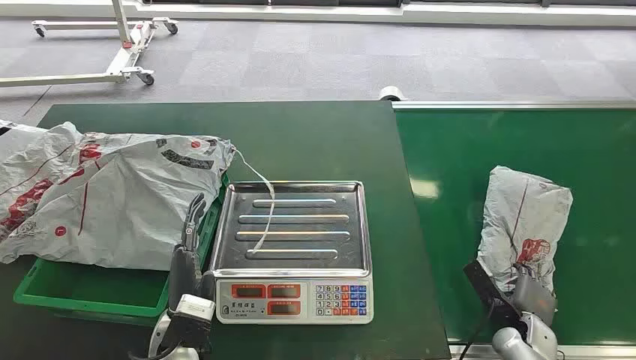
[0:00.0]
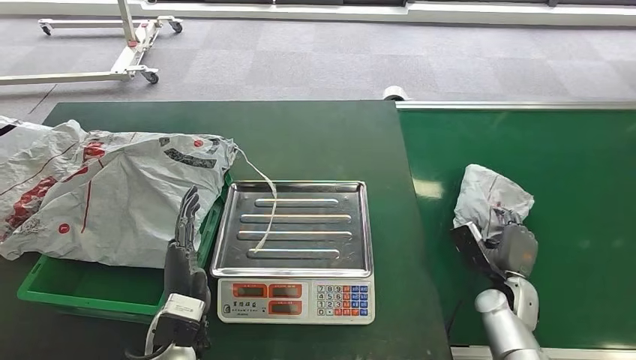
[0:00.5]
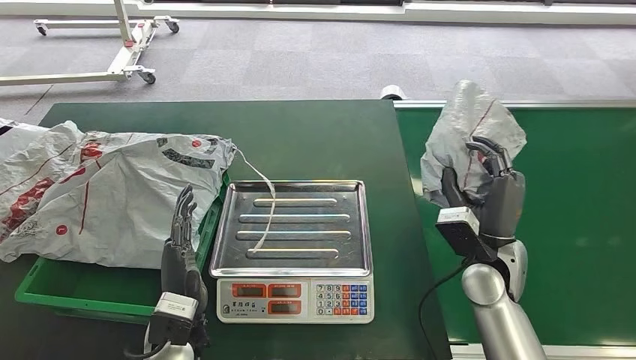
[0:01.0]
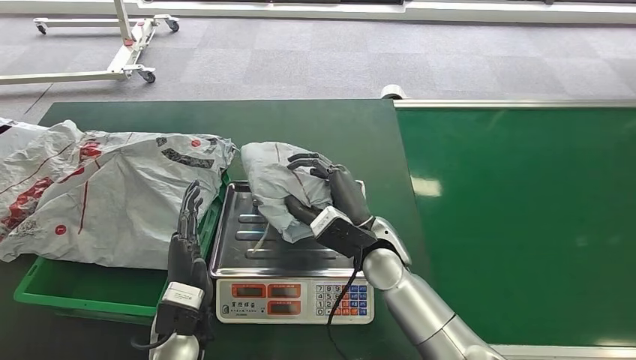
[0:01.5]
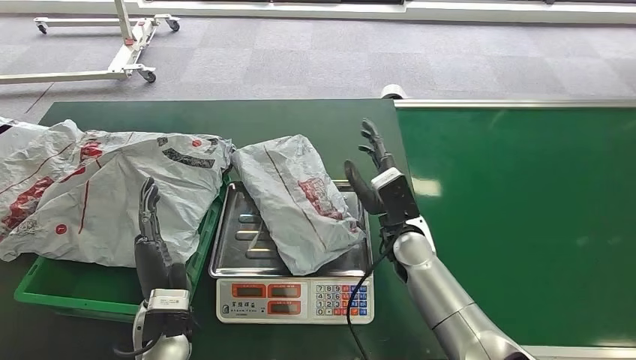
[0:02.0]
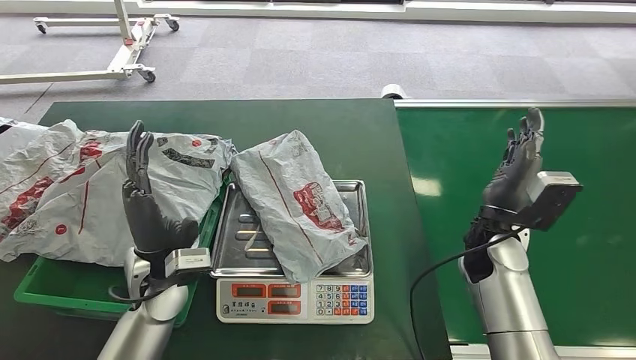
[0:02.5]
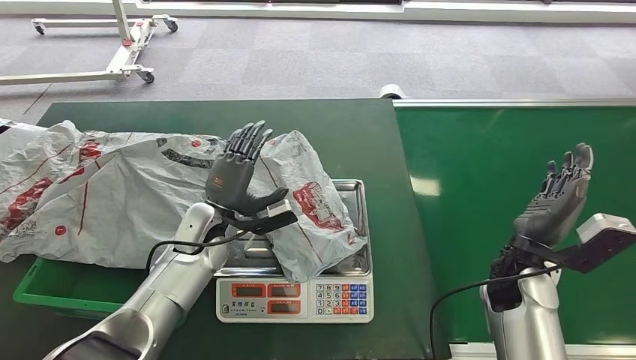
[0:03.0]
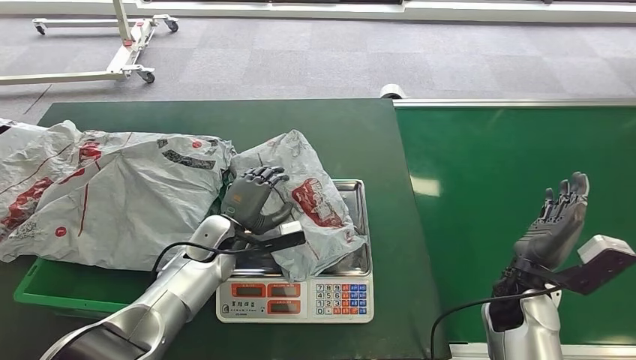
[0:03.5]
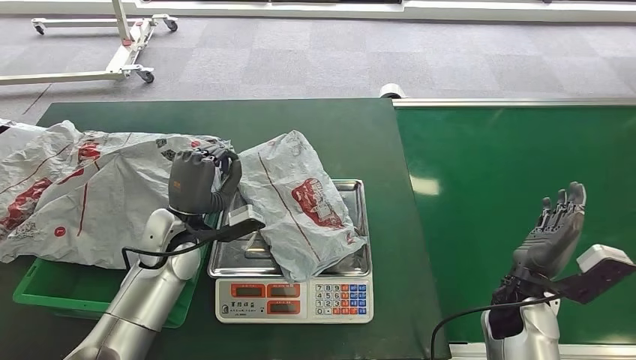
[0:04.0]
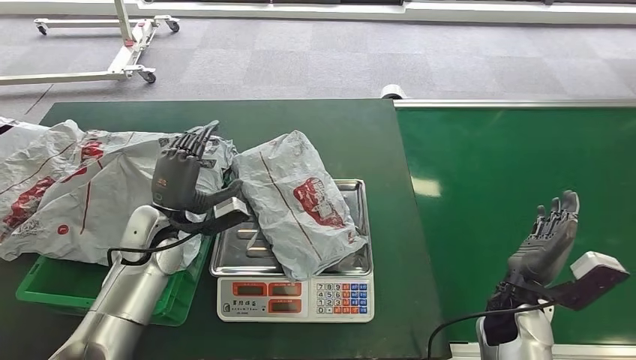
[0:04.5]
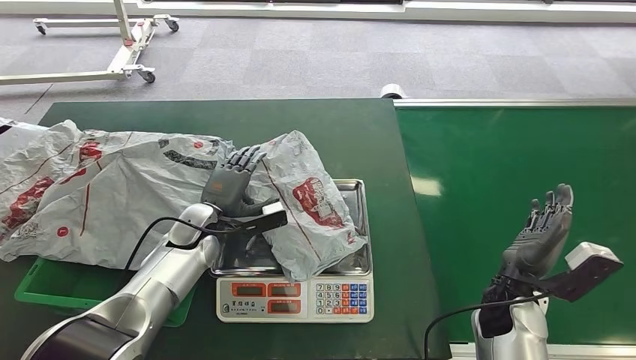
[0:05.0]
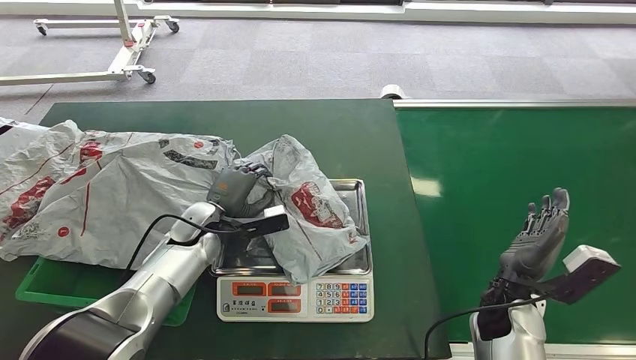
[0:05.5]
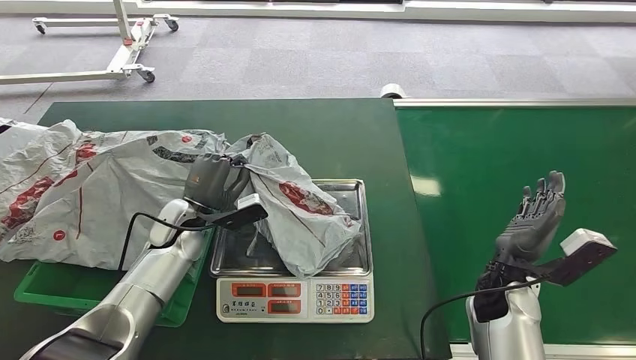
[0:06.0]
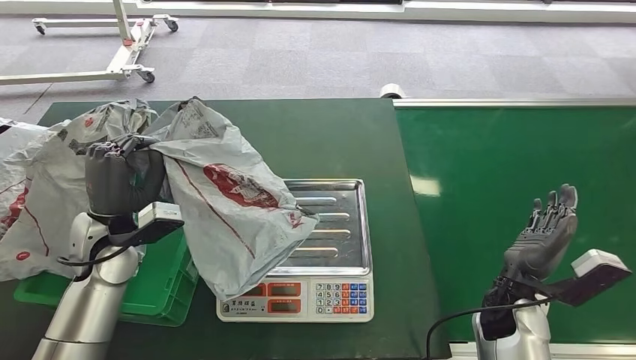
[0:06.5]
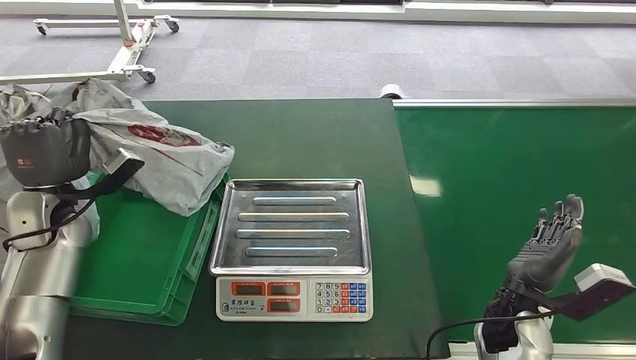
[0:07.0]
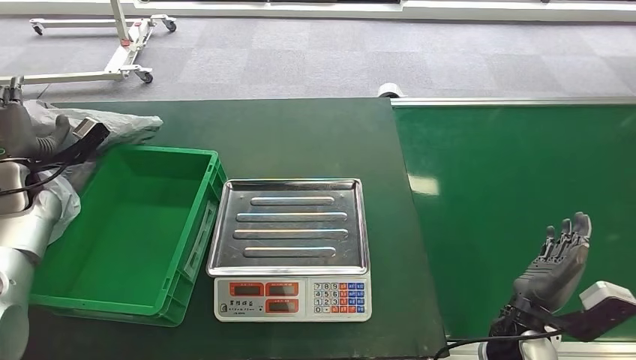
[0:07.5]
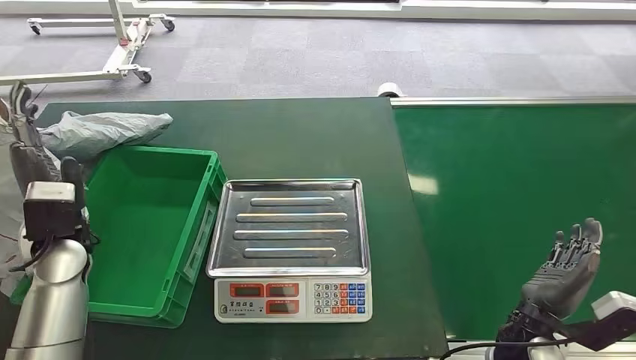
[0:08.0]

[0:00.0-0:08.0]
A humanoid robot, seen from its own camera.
Task of the whole recording: Weigh the package on the weighing device and place it in the left basket.
Step, 0:00.0 to 0:00.5: Pick up the package from the conveyor belt.
Step, 0:01.0 to 0:02.5: Place the package onto the inbound machine.
Step, 0:03.0 to 0:06.5: Pick up the package from the inbound machine.
Step, 0:07.0 to 0:07.5: Place the package into the parcel locker.
0:04.0 to 0:06.0: The left hand shifts by some 5 cm.

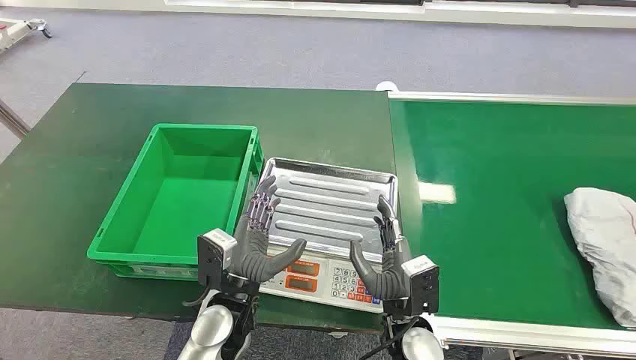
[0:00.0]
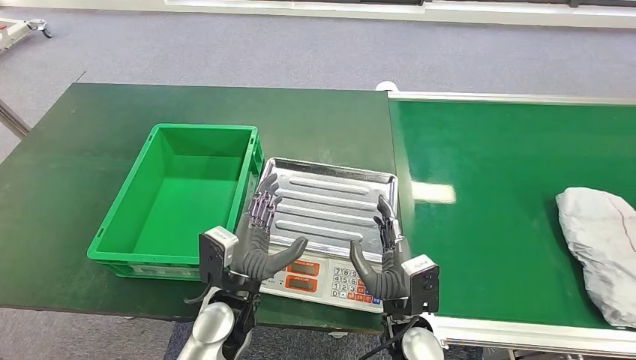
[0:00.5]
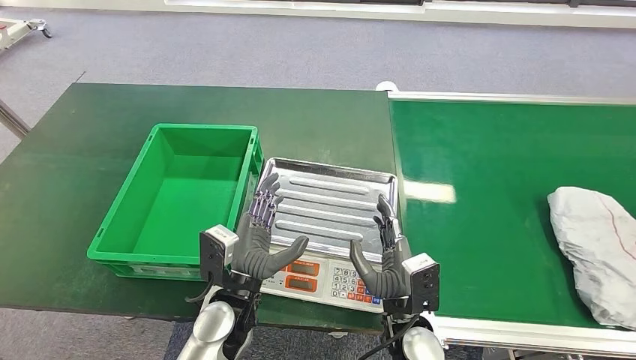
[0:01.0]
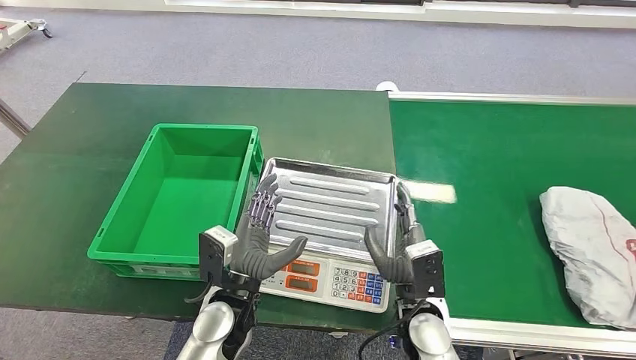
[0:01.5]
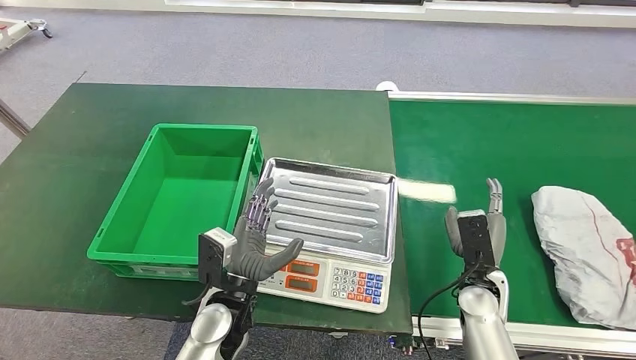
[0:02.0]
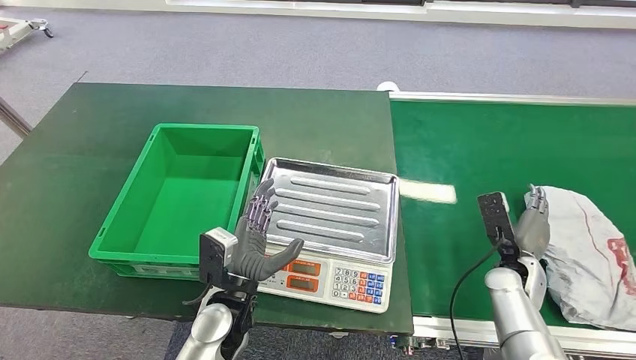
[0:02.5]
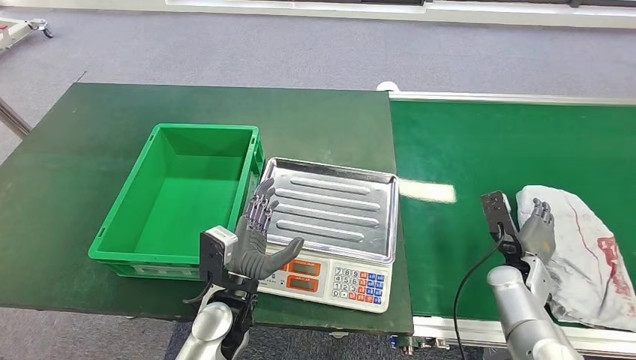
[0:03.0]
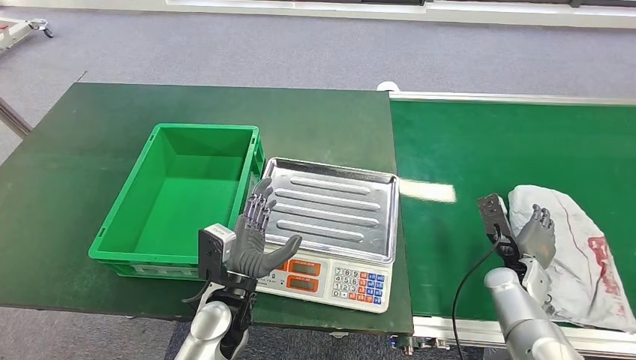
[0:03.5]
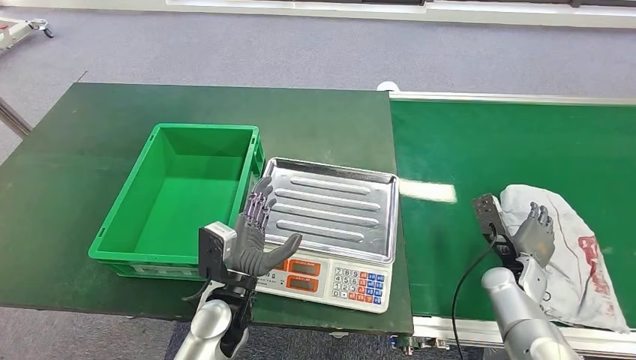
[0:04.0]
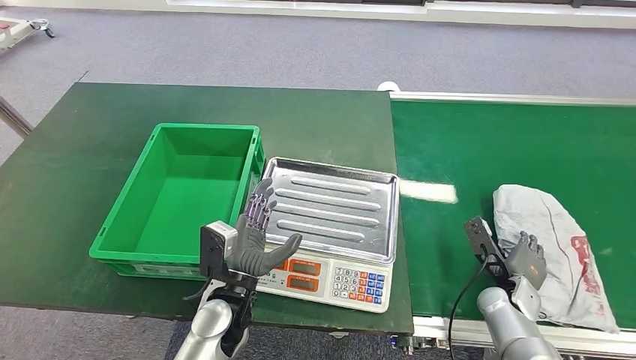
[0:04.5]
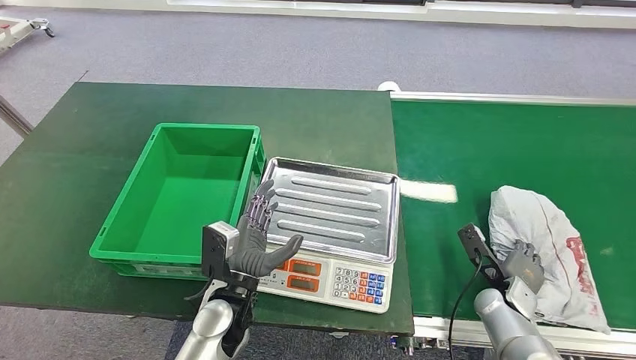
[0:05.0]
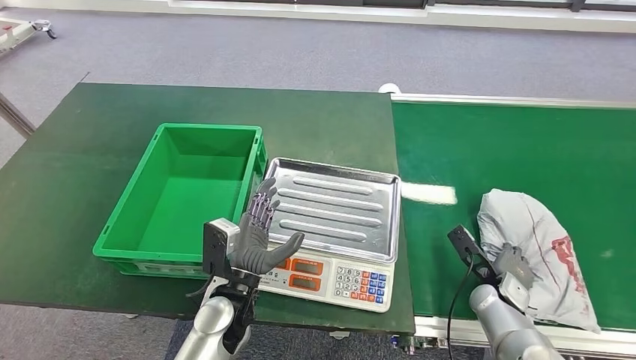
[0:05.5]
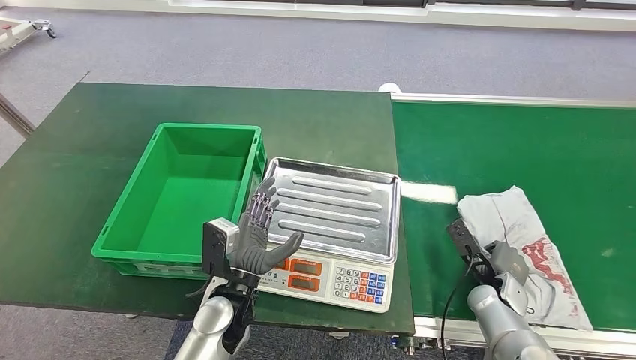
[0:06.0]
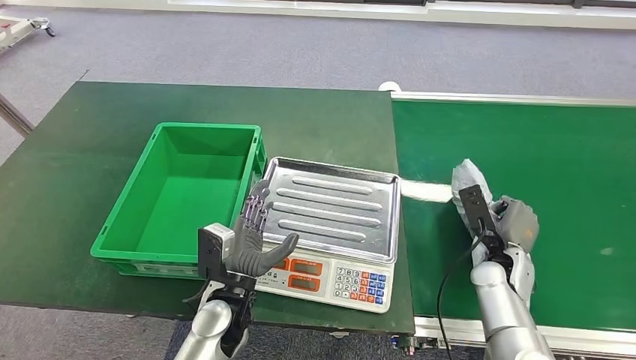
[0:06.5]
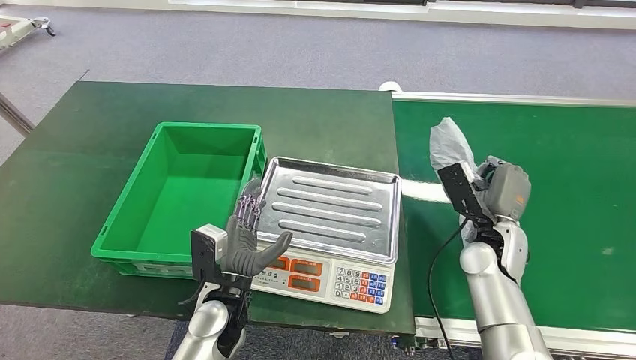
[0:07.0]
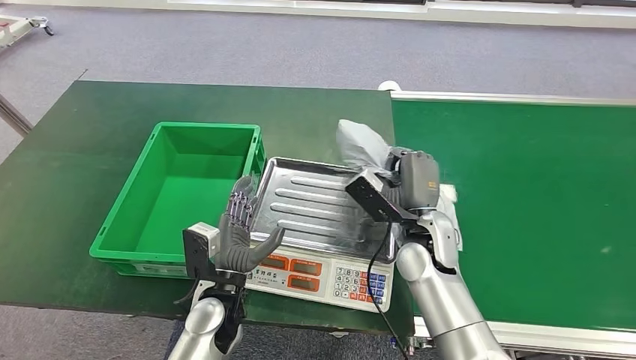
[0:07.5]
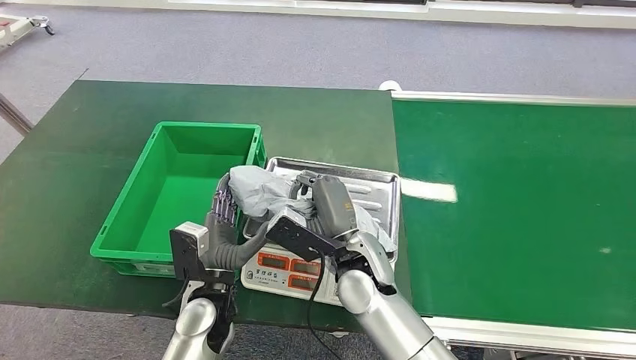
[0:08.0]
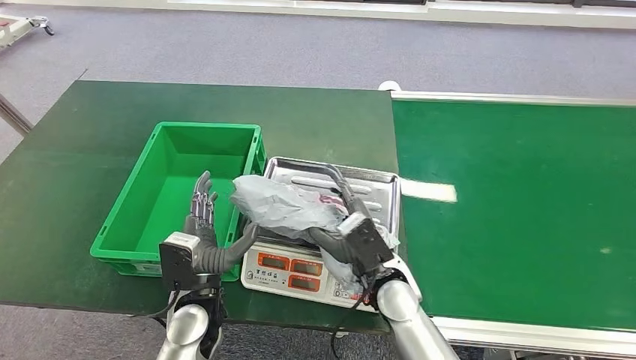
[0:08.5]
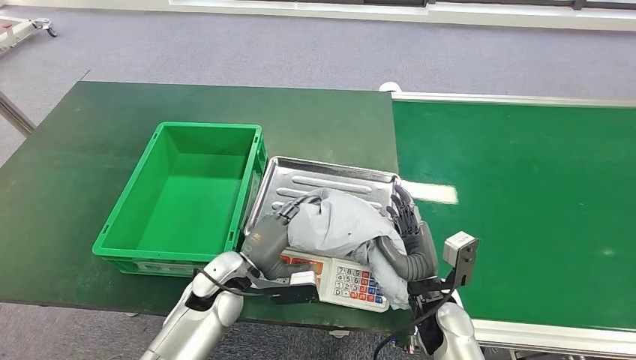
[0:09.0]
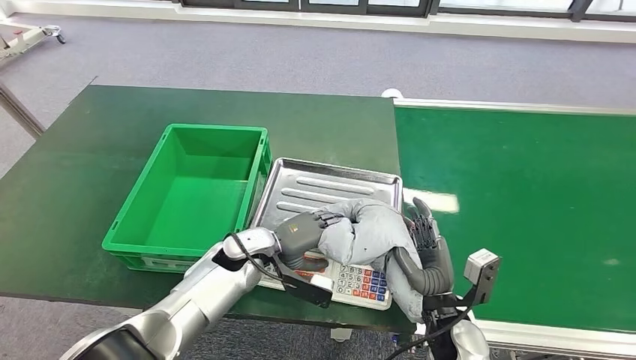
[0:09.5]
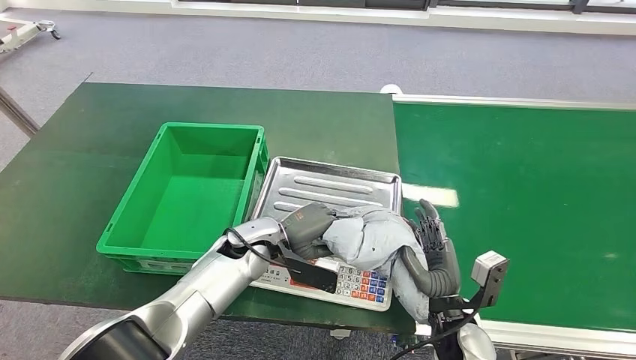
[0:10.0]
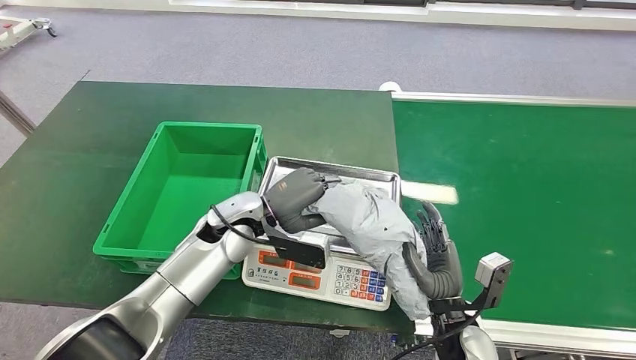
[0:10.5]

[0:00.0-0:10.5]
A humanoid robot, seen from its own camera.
Task of the whole recording: Weigh the package on the weighing device and place it in the left basket.
Step, 0:00.0 to 0:07.0: Pick up the package from the conveyor belt.
Step, 0:07.5 to 0:08.5: Place the package onto the inbound machine.
0:02.0 to 0:04.0: The right hand shifts roughly 10 cm to the right.
0:06.5 to 0:08.5: The right hand heads to the left, covering about 25 cm.

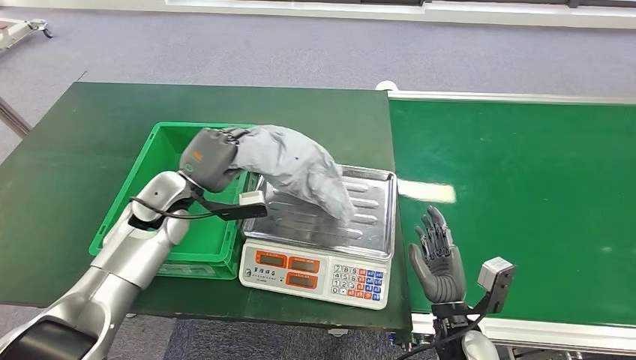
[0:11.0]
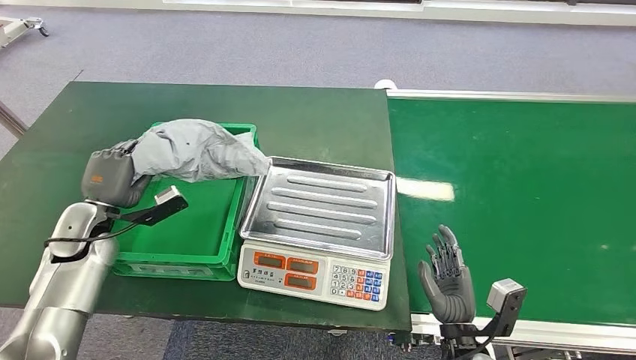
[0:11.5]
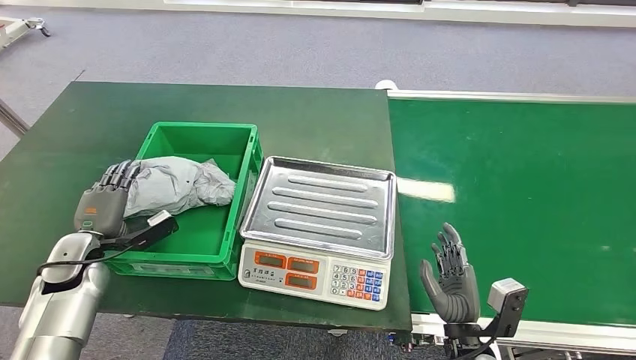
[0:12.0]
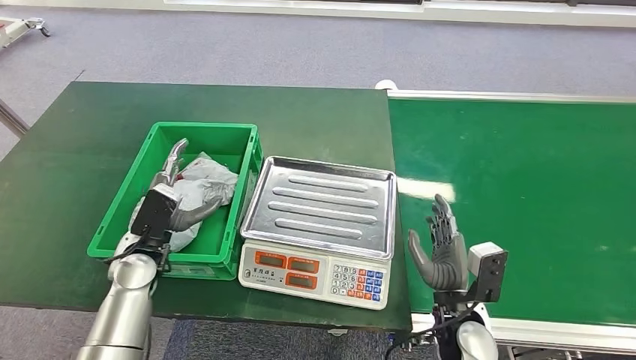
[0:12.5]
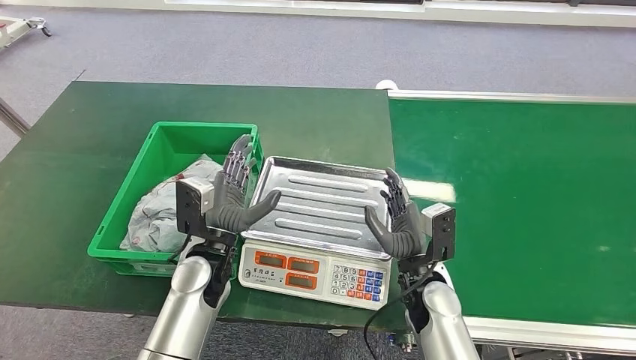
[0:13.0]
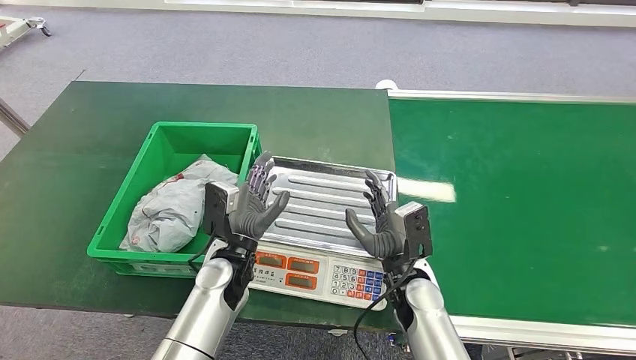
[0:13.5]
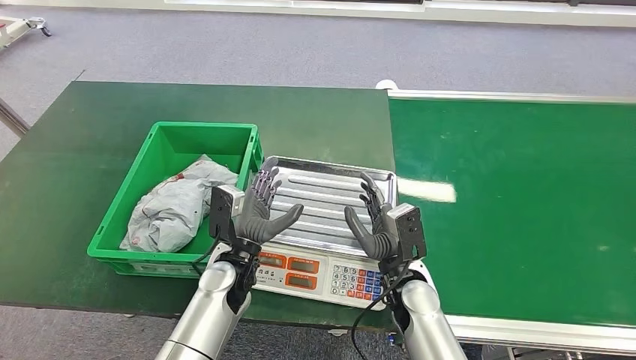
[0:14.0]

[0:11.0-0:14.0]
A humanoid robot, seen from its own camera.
Task of the whole recording: Weigh the package on the weighing device and place it in the left basket.
Step, 0:11.5 to 0:14.0: Place the package into the parcel locker.
0:11.0 to 0:12.5: The left hand goes approximately 10 cm backward and downward, and travels to the left and back again, some 15 cm each way.
0:12.5 to 0:14.0: The left hand heads to the right, covering some 15 cm. Meanwhile the right hand moves to the left, roughly 10 cm.
